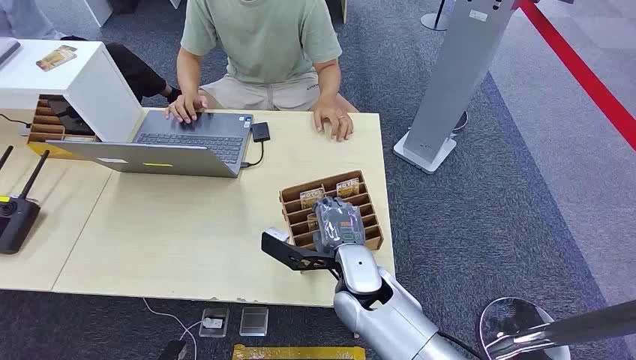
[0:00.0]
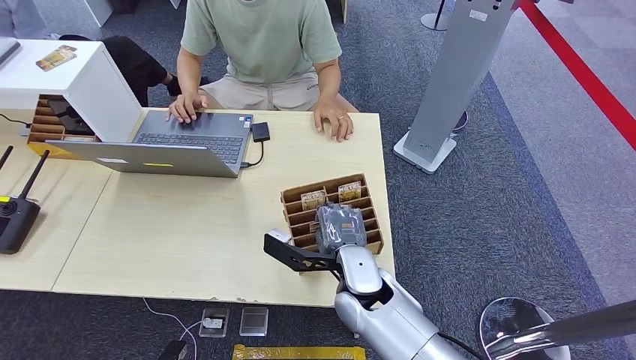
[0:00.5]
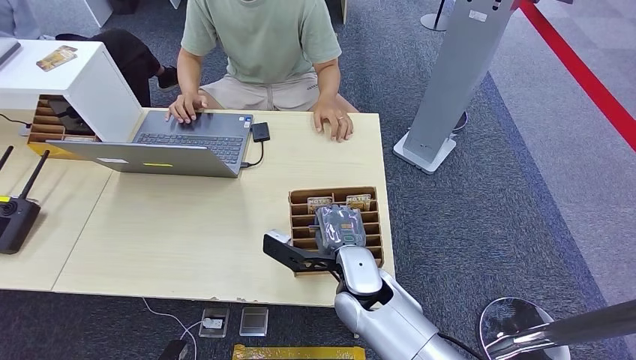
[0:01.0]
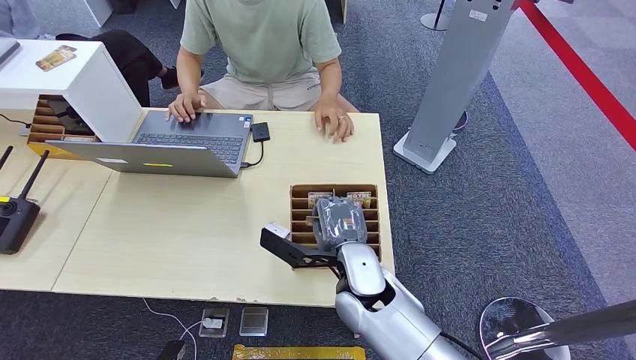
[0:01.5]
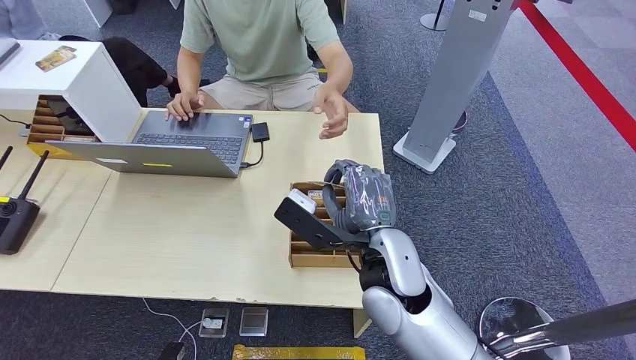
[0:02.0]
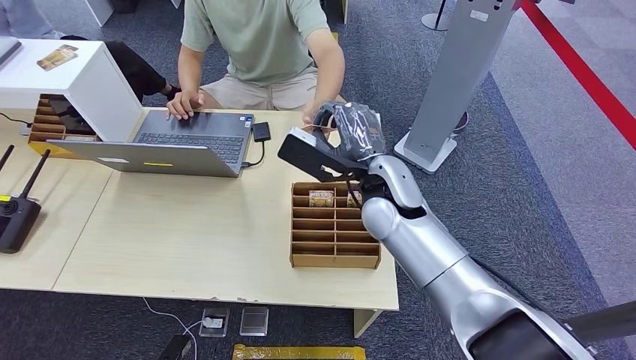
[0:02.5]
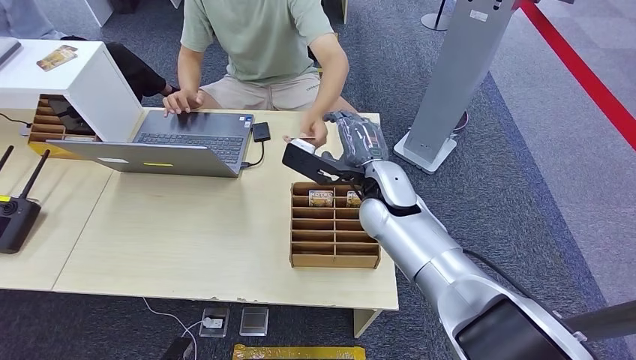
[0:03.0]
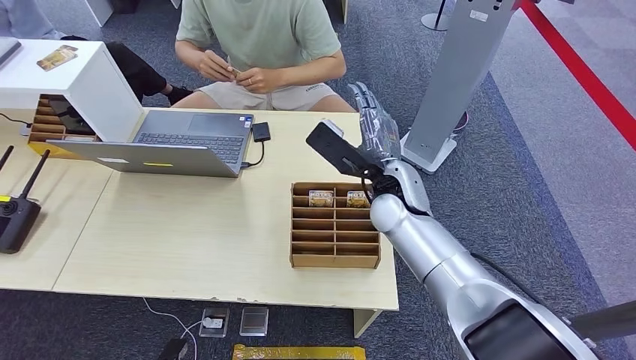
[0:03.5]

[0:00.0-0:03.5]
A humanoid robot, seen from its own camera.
Task of the whole recording: Pick up the card and hand it to the target person.
Step, 0:00.0 to 0:01.5: Pick up the key card from the card box.
Step, 0:03.0 to 0:03.5: Hand the key card to the target.
0:02.0 to 0:03.5: The right hand shifts approximately 15 cm forward.
